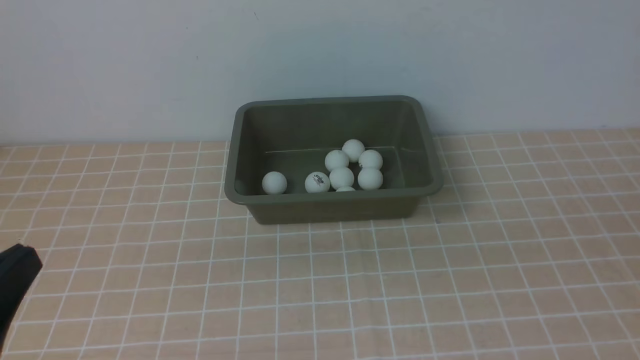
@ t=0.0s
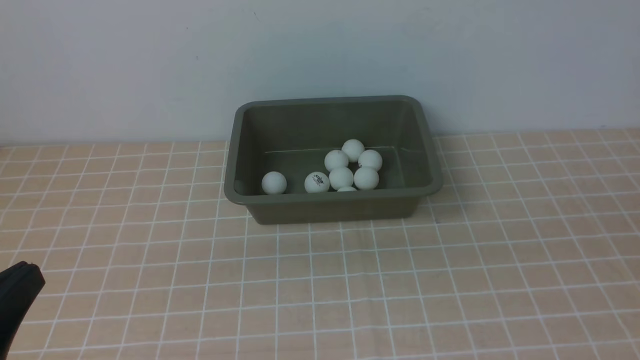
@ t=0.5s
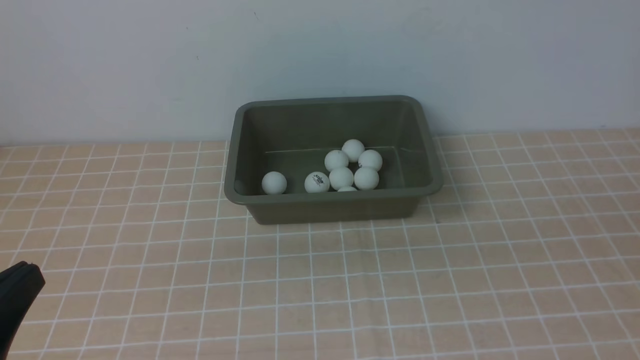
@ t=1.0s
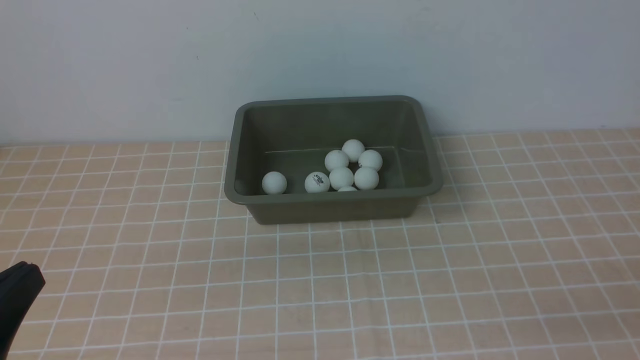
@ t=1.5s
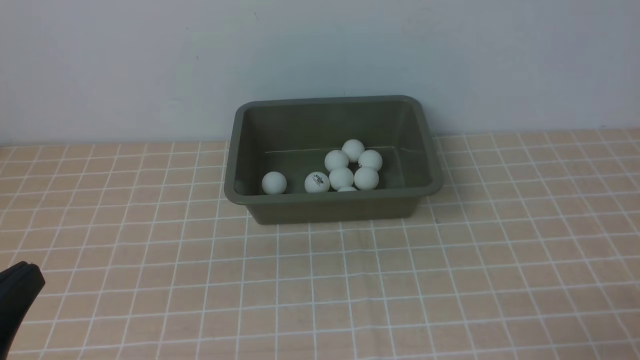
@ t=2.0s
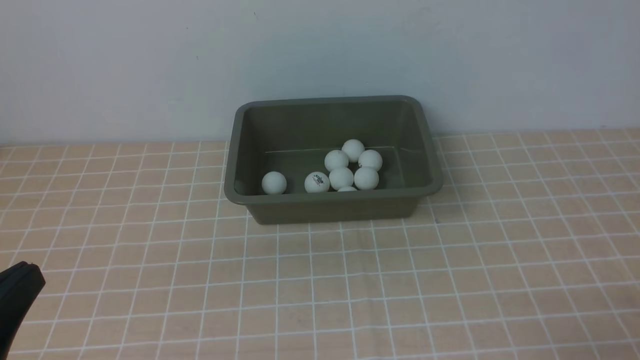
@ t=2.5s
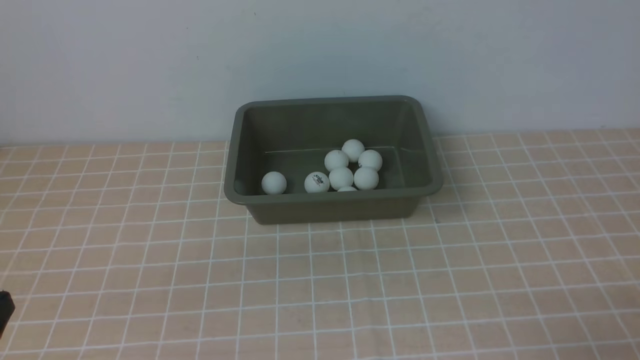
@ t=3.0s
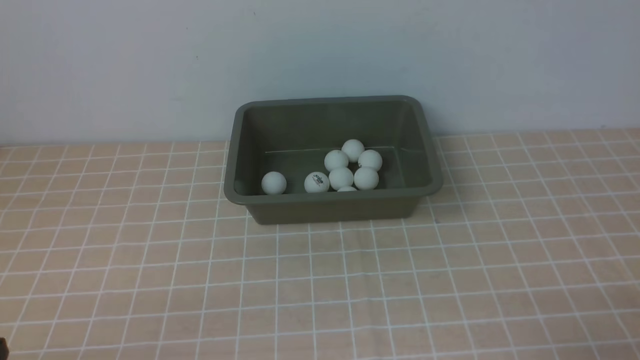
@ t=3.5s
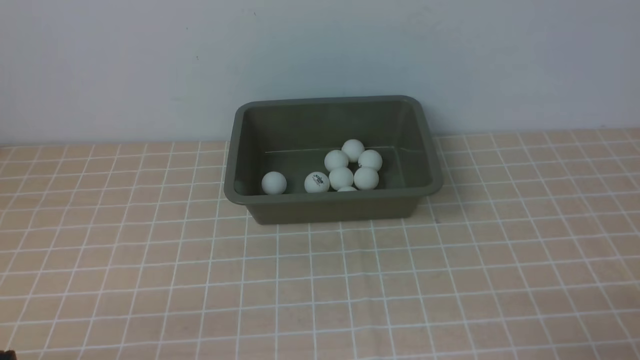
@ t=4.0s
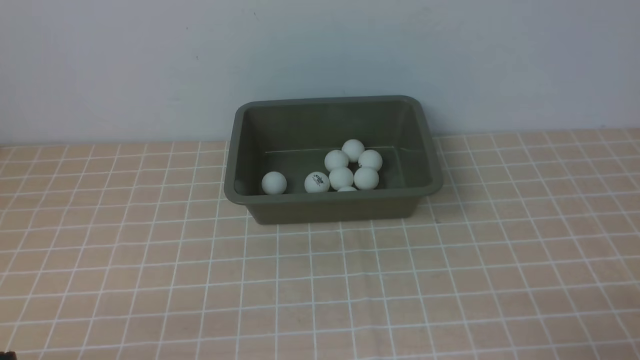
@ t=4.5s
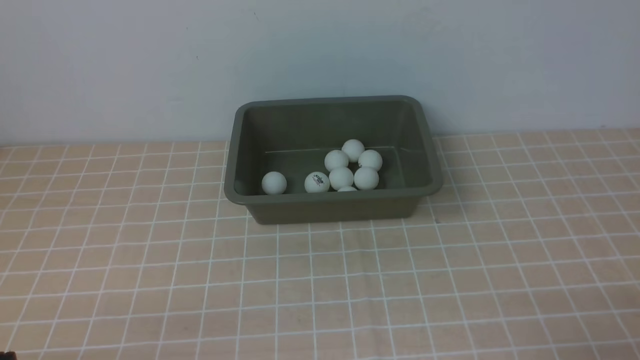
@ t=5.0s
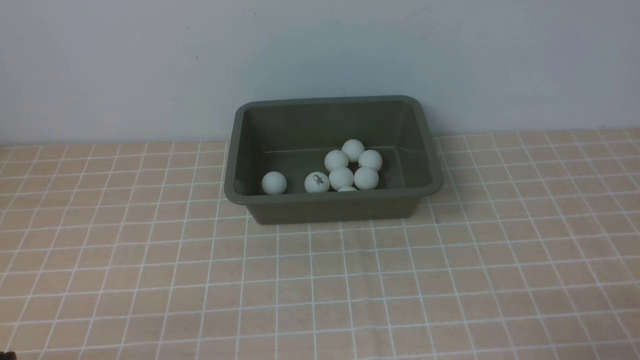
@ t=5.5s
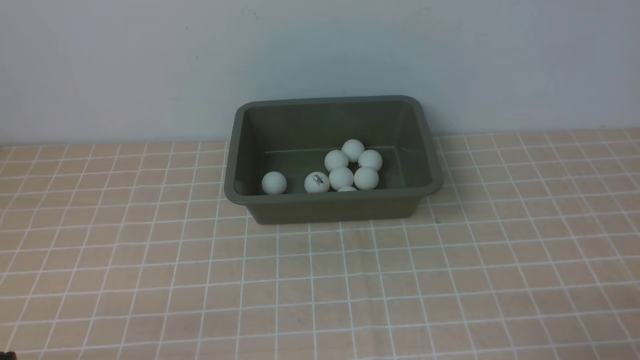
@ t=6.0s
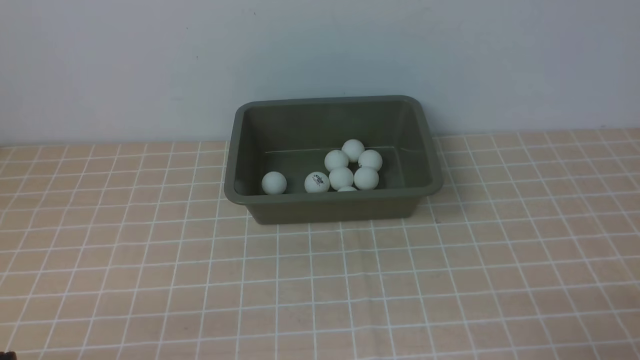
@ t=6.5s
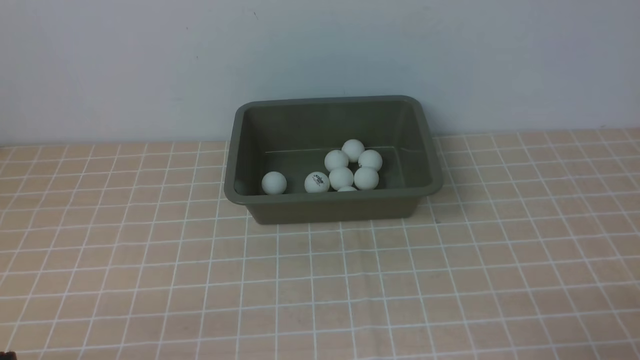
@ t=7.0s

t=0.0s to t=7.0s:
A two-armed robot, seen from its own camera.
t=2.0s to t=3.5s: The left gripper goes about 10 cm downward.
t=5.0s to t=7.0s: Both grippers stay about where they are.
